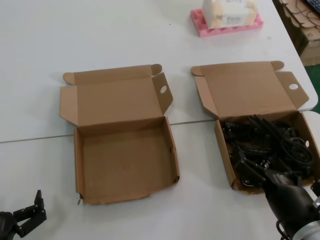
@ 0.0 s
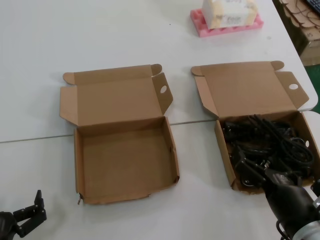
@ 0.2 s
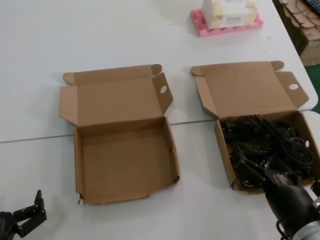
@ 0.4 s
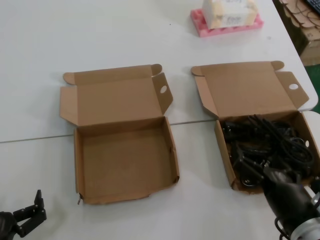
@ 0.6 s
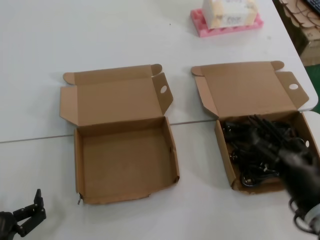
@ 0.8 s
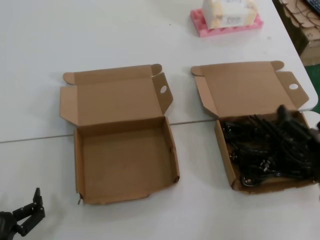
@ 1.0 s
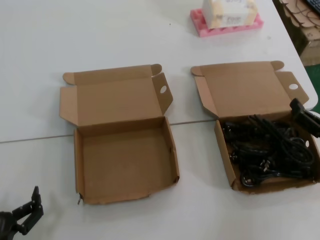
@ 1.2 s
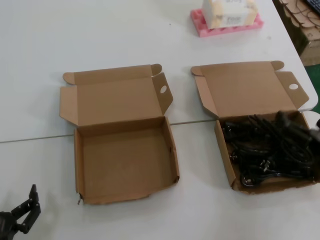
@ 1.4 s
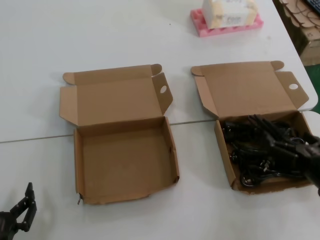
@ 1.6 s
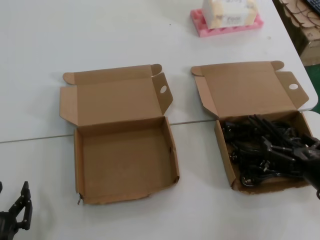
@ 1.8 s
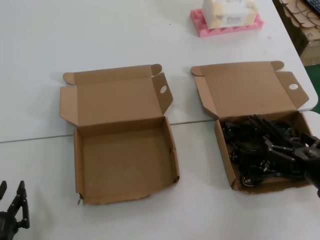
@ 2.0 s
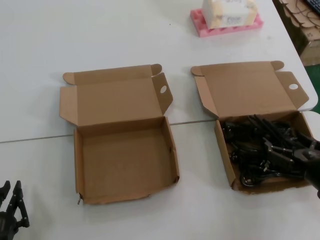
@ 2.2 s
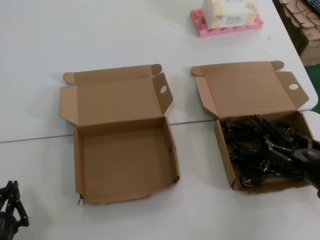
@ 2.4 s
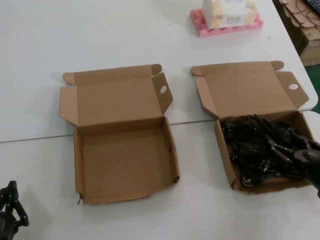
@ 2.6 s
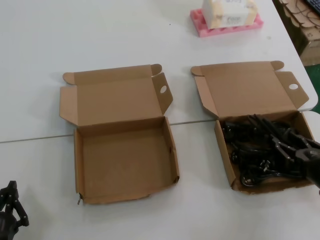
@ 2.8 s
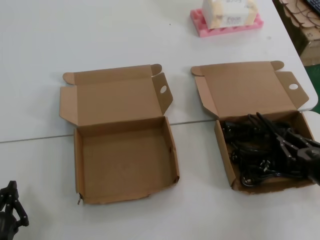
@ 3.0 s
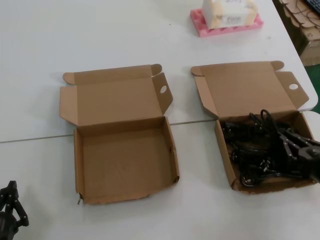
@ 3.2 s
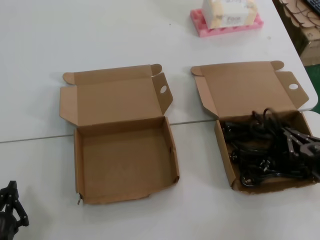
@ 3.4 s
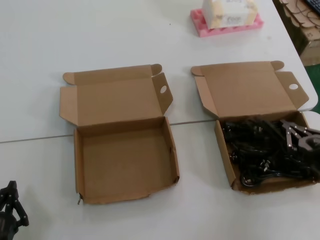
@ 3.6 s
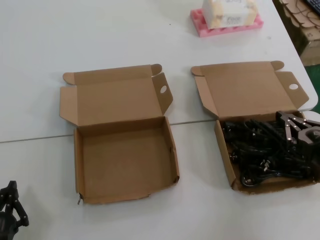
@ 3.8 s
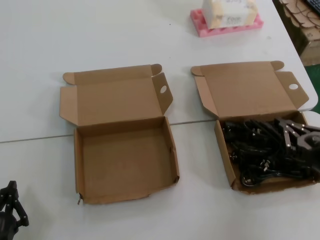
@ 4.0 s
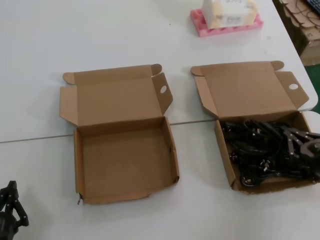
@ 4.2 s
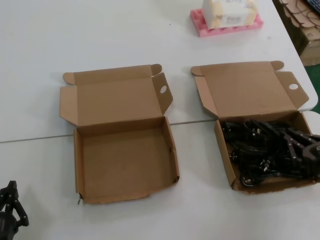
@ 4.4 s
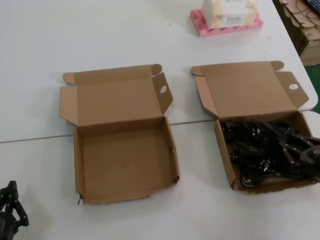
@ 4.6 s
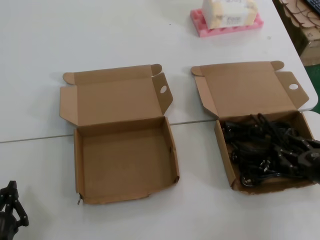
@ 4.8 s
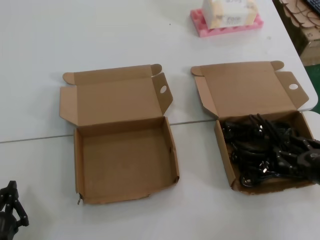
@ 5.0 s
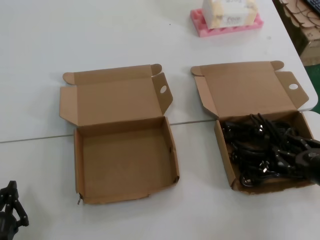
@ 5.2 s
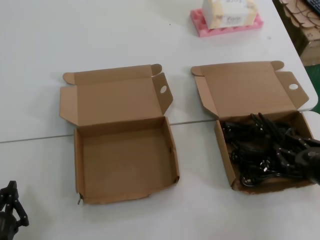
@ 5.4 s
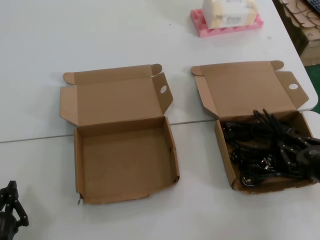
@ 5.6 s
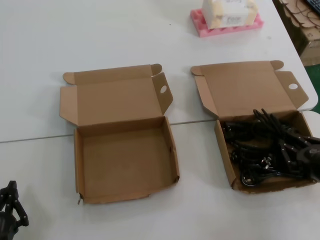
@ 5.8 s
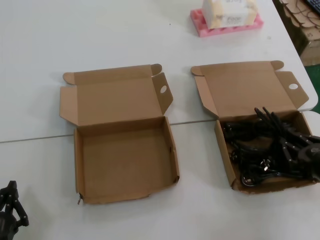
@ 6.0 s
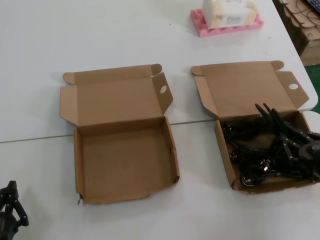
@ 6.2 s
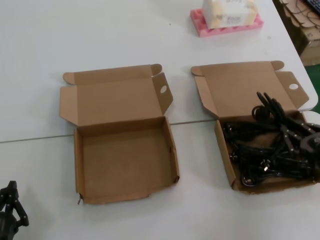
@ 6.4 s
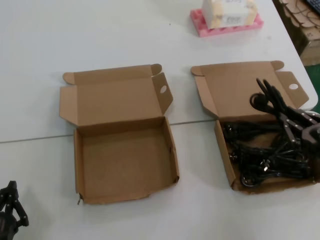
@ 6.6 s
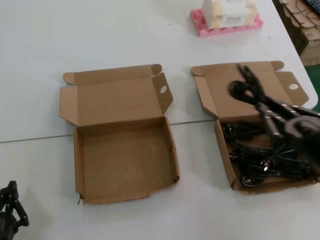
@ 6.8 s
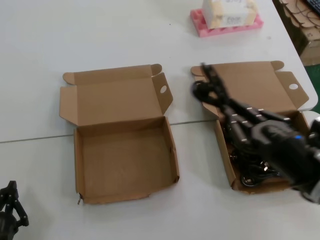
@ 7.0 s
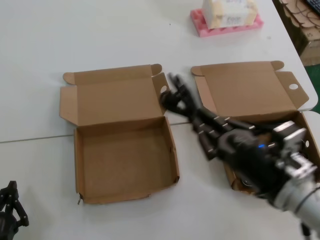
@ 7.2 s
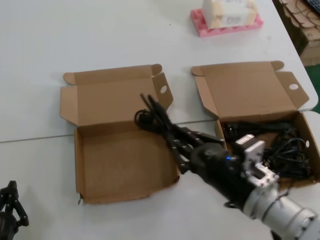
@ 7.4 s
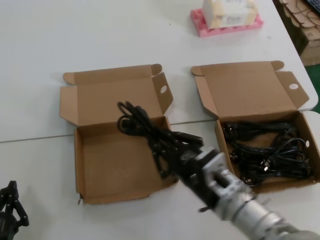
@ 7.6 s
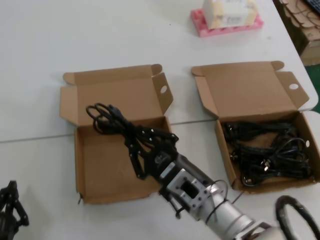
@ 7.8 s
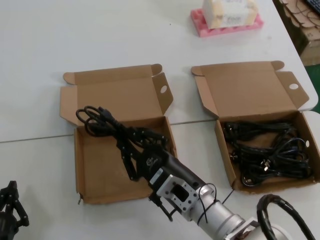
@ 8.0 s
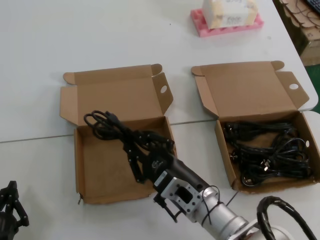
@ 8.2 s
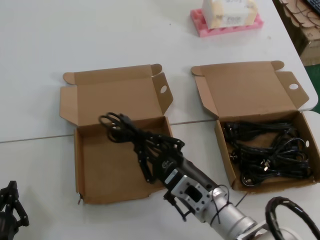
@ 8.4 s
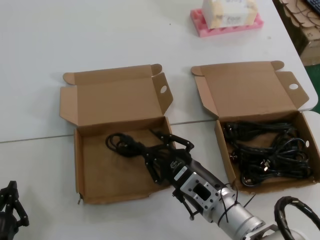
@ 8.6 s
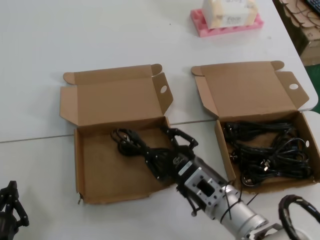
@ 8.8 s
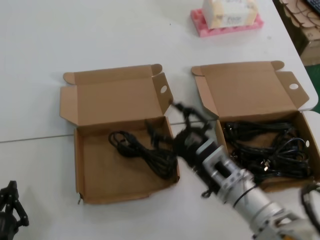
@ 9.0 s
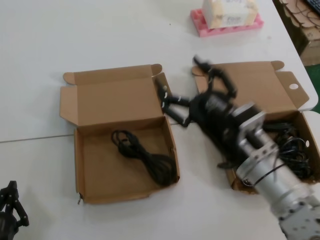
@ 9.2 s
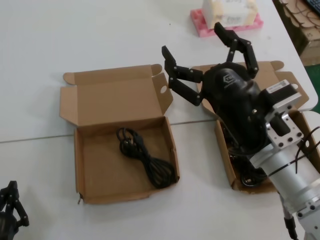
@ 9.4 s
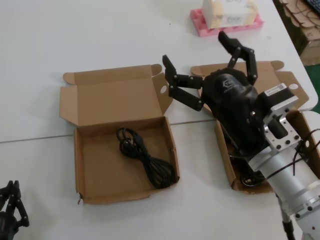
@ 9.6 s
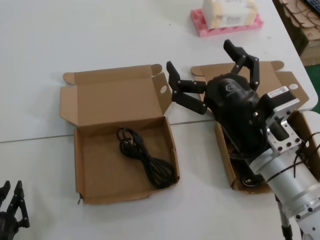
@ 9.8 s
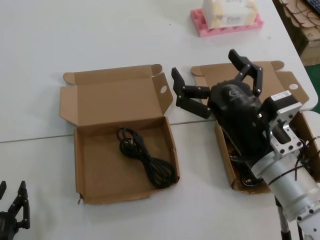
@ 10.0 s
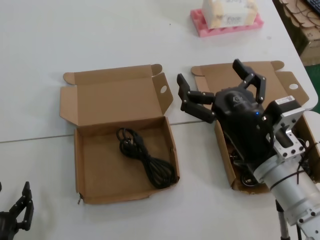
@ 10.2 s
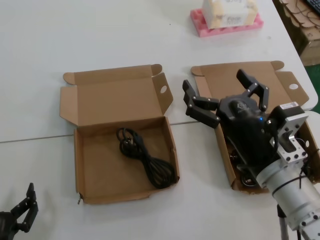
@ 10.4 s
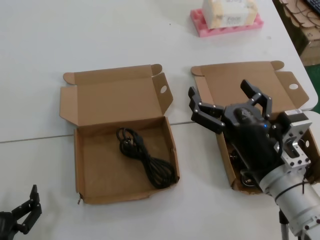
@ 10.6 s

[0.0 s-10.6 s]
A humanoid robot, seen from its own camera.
Task of the whole recording: Pick up the power cord from the box containing it and place it in another box.
Step, 0.0 to 5.8 s: Grasp the data cable.
Step, 6.0 to 8.4 s: Place the data cable in the another box.
0.0 to 1.6 s: The right hand goes approximately 10 cm to the right and forward.
1.6 to 3.0 s: There are only small adjustments of the hands.
6.0 to 7.6 s: The right hand goes approximately 20 cm to the left.
9.0 to 10.6 s: The right hand moves upward, some 5 cm.

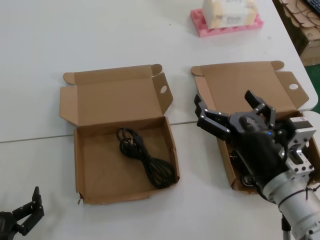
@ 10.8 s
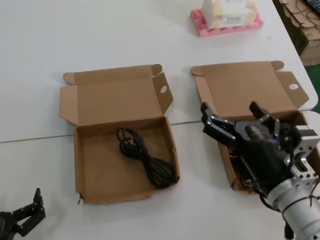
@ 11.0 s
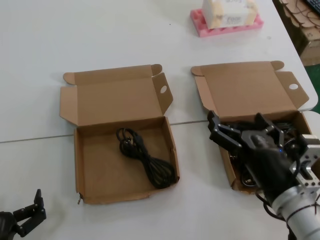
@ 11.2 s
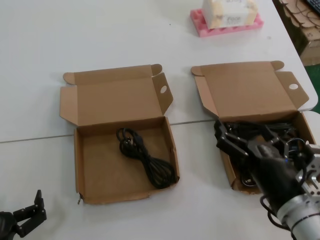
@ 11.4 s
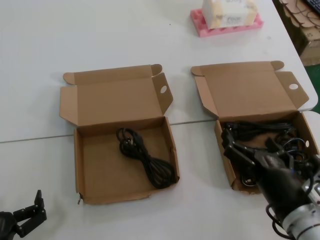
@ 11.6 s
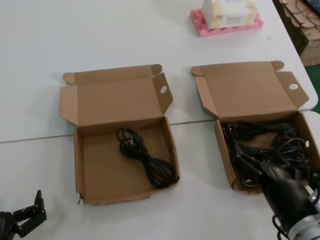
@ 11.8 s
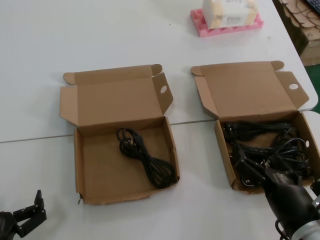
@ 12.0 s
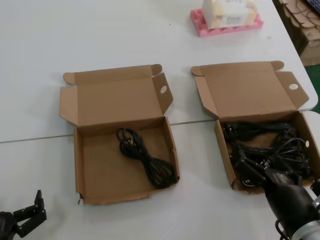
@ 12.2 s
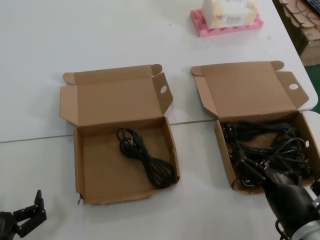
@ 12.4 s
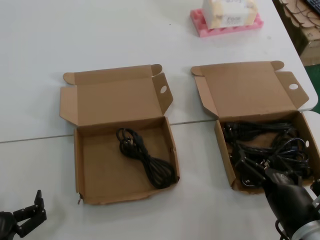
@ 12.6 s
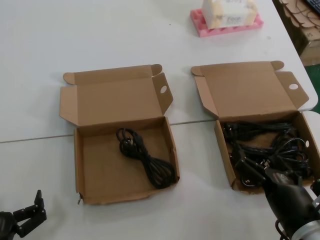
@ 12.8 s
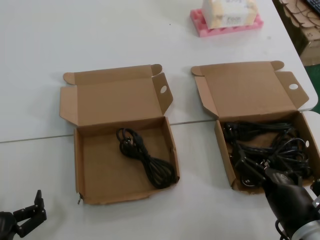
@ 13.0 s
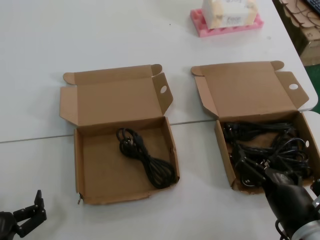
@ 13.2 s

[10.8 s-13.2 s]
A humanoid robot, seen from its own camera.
Task of the whole recording: Pick up the power cord from the box containing it and place it in another box.
10.8 to 12.0 s: The right hand is displaced downward by about 10 cm.
12.0 to 13.2 s: The two hands keep their place.
